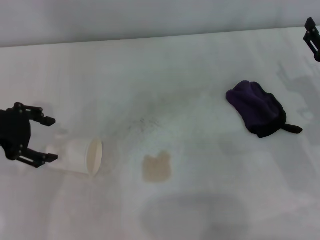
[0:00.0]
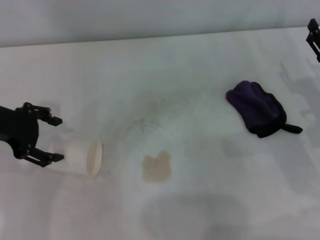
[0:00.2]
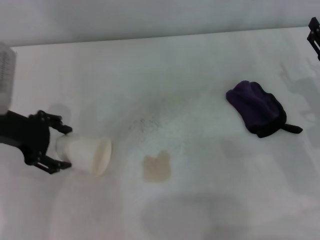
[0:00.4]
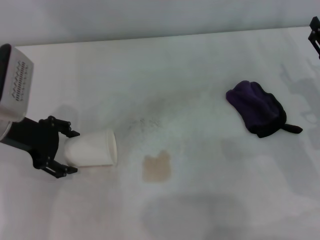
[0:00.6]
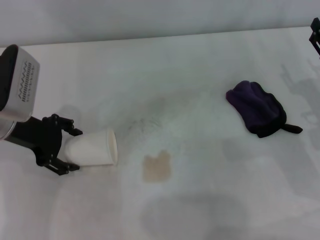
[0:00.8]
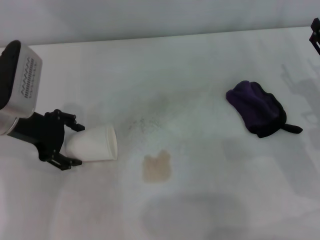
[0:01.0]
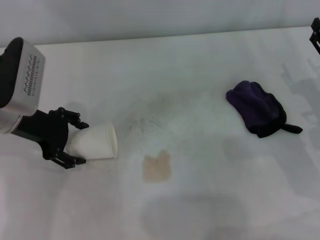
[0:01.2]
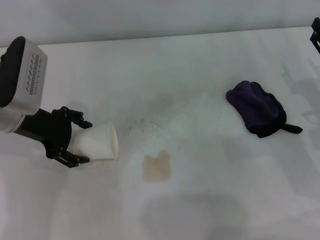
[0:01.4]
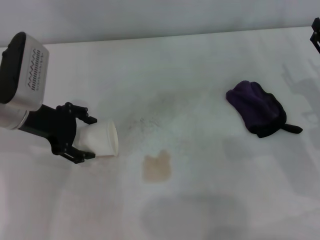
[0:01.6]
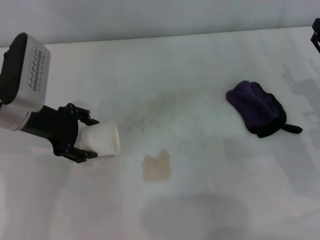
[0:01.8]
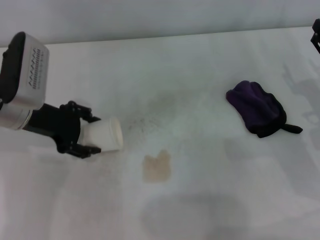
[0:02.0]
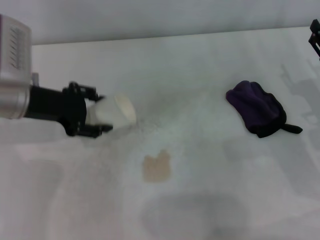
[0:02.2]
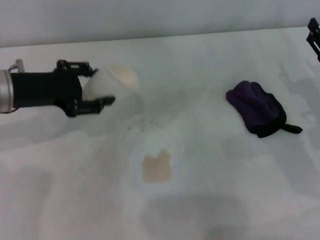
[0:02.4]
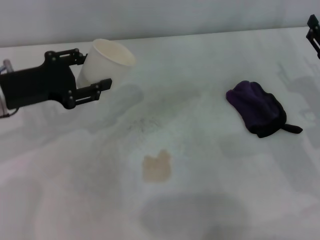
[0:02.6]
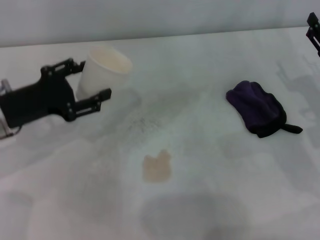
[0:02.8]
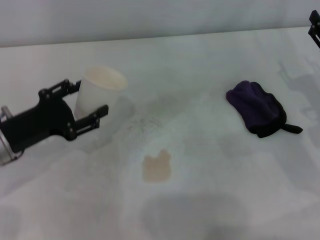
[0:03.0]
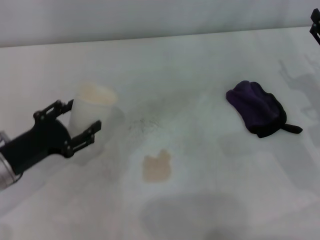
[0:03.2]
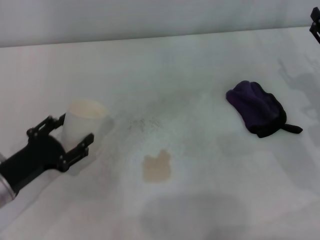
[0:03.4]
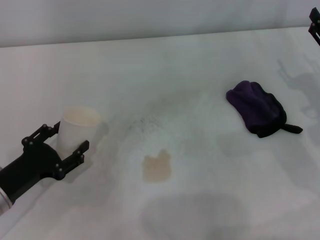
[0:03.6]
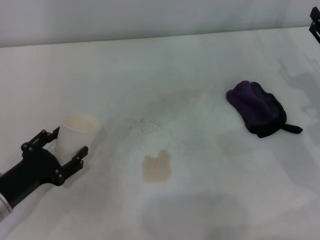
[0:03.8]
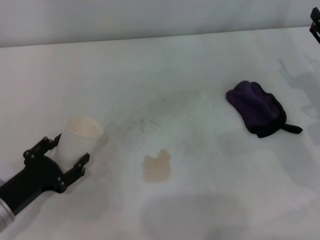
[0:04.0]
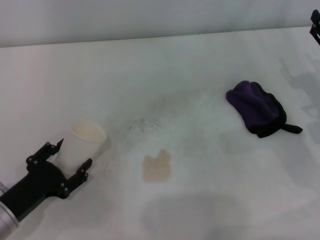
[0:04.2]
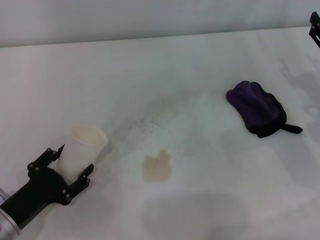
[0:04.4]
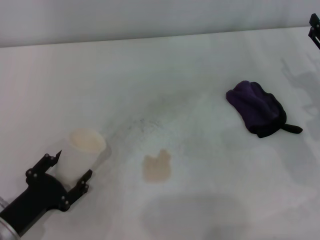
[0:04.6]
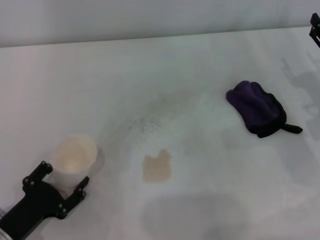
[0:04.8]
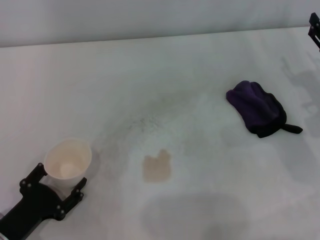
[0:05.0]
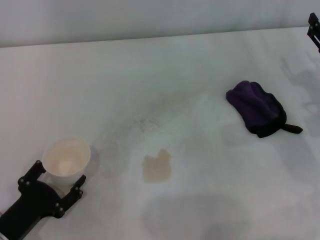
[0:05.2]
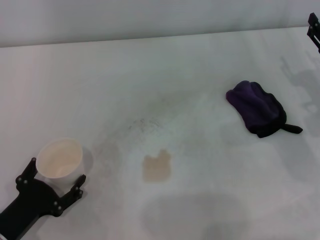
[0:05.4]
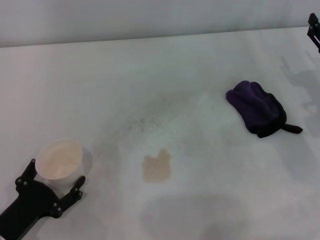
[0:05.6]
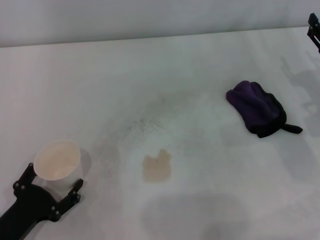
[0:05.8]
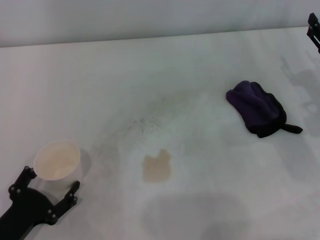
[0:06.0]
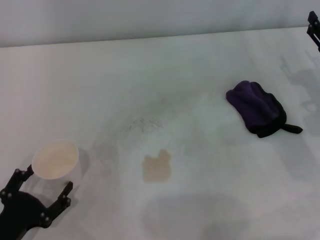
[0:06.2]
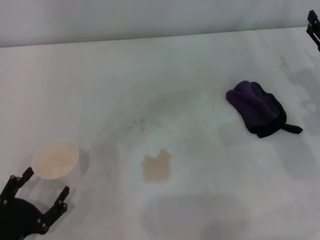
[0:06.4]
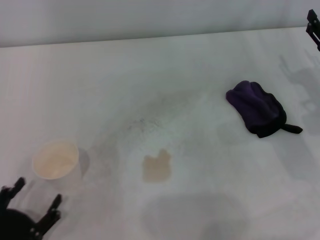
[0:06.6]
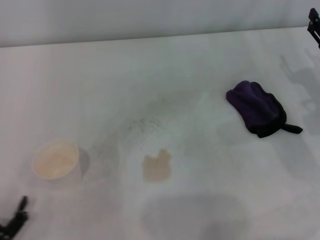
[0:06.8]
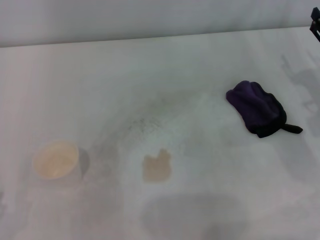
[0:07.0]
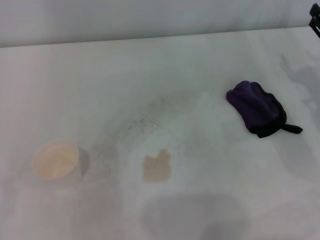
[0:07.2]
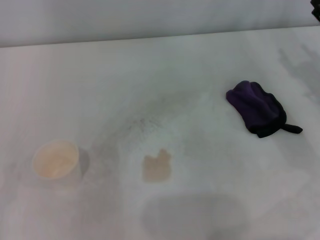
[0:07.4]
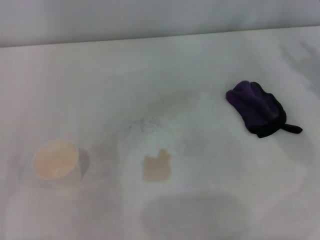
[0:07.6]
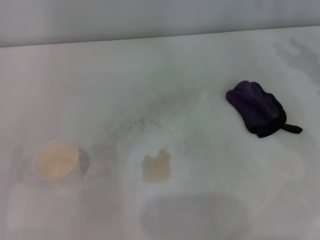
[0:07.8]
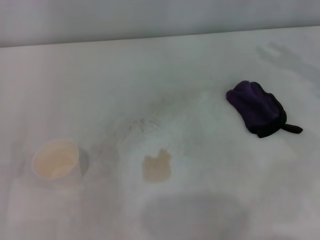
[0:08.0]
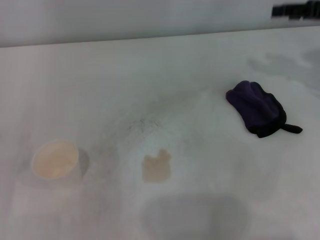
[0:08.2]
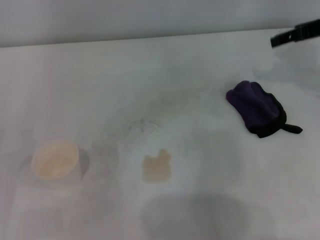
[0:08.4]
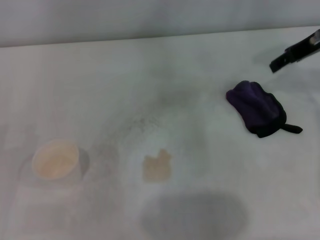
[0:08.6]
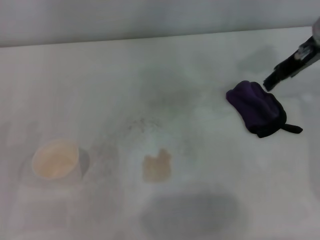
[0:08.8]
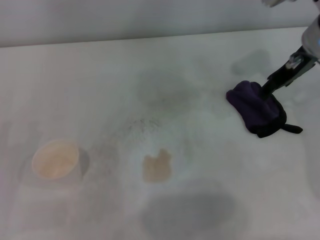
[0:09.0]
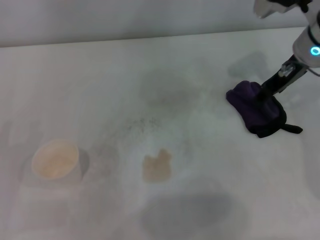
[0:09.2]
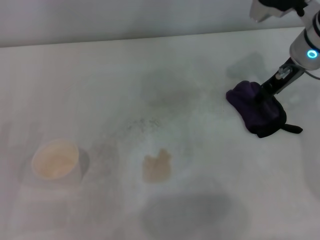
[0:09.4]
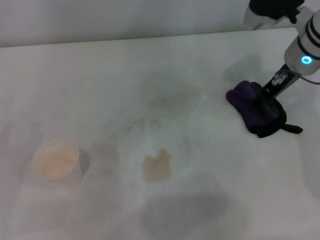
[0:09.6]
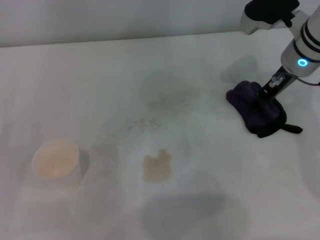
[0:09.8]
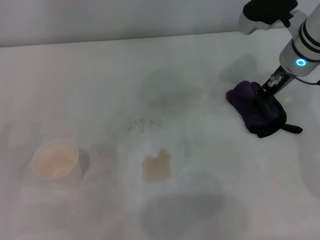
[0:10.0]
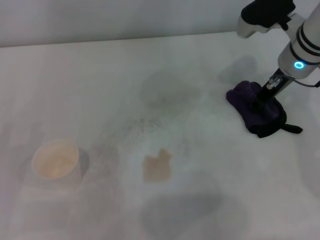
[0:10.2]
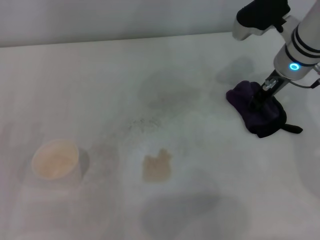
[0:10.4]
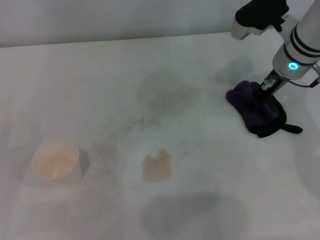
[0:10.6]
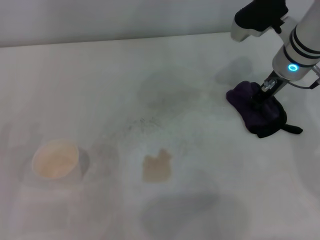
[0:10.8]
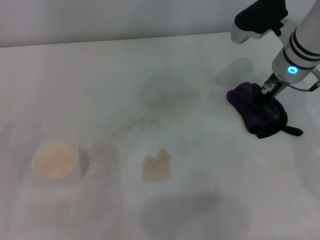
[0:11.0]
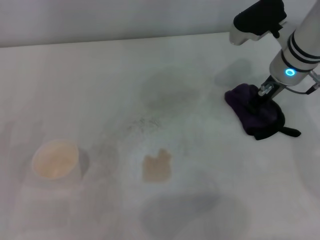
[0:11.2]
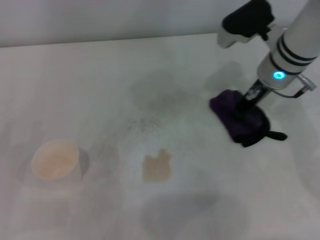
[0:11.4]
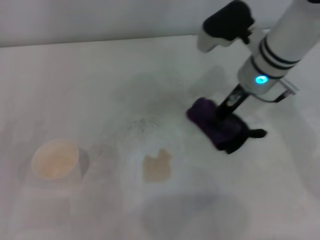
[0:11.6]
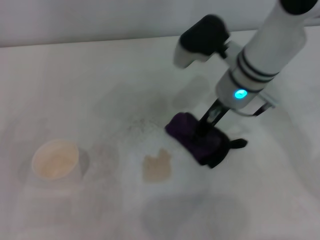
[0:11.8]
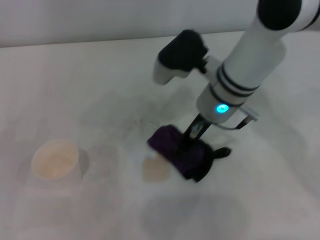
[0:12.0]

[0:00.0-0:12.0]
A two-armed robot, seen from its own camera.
Step, 0:01.2 to 0:06.2: Stand the paper cup upright with the left gripper.
Step, 0:06.4 to 0:10.2: Grasp the rag with the right gripper.
0:00.0 to 0:01.6: The left gripper travels to the right by some 5 cm.
0:01.6 to 0:03.0: The left gripper moves backward, about 10 cm, and closes its fingers.
0:03.0 to 0:04.4: The left gripper shifts about 15 cm backward and downward.
0:04.4 to 0:06.0: The left gripper opens up.
0:06.0 to 0:07.6: The left gripper is displaced to the left by approximately 10 cm, while the right gripper changes place by some 5 cm.
0:07.6 to 0:09.0: The right gripper is displaced to the left, upward and forward by roughly 15 cm.
0:09.0 to 0:10.4: The right gripper is displaced downward by about 5 cm.
0:10.4 to 0:12.0: The right gripper shifts approximately 10 cm to the left, and closes.

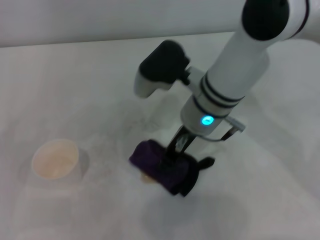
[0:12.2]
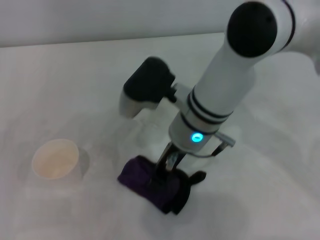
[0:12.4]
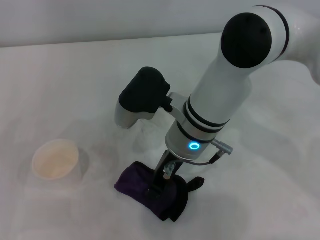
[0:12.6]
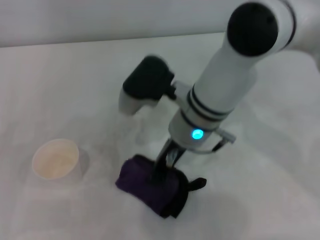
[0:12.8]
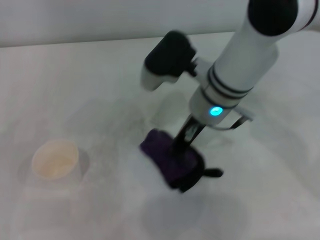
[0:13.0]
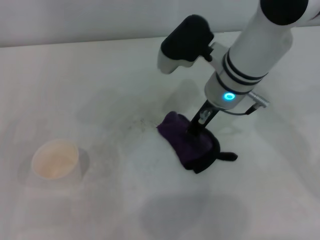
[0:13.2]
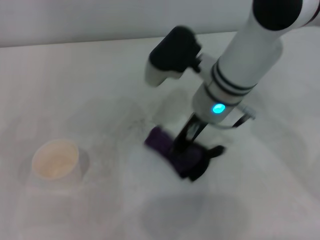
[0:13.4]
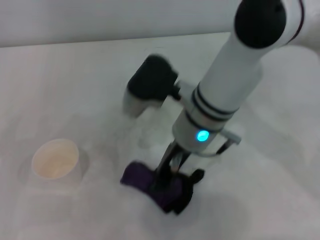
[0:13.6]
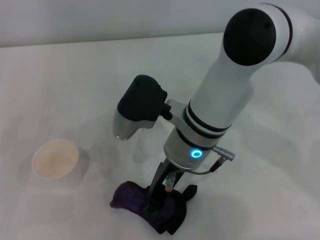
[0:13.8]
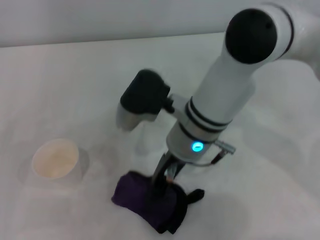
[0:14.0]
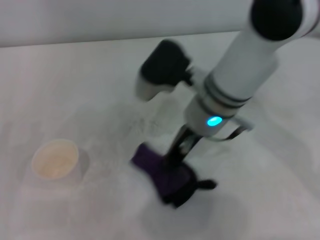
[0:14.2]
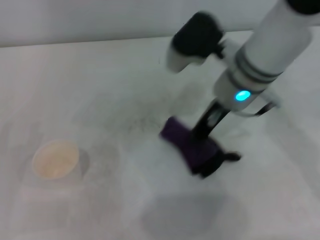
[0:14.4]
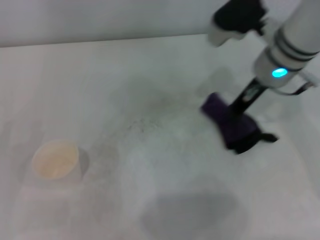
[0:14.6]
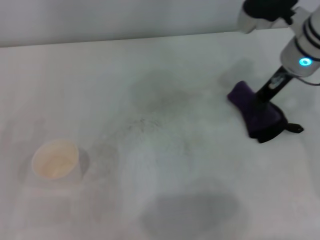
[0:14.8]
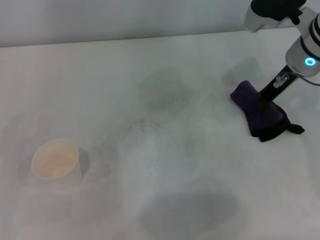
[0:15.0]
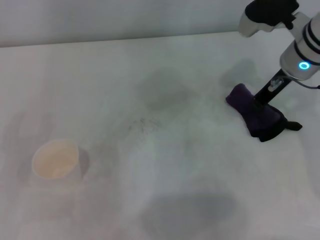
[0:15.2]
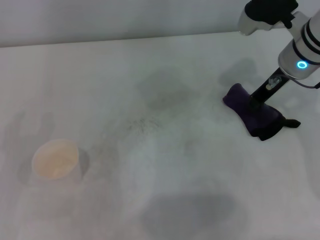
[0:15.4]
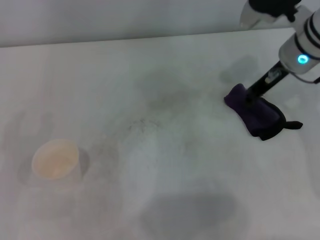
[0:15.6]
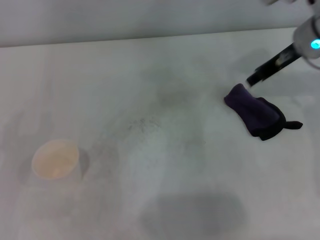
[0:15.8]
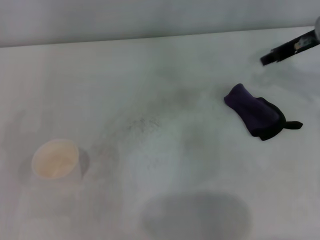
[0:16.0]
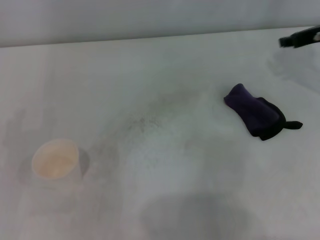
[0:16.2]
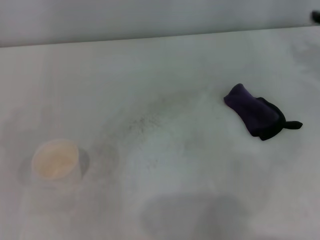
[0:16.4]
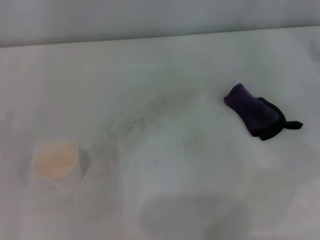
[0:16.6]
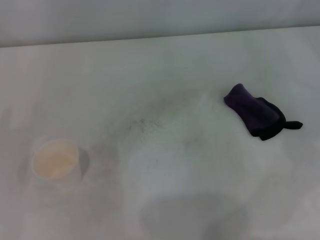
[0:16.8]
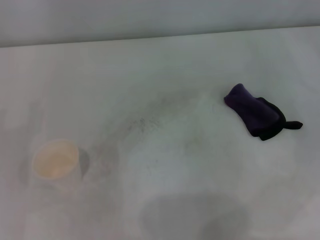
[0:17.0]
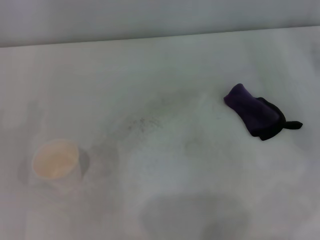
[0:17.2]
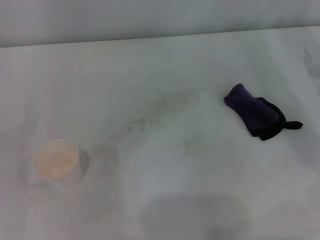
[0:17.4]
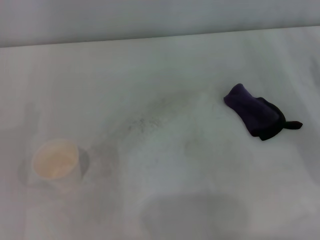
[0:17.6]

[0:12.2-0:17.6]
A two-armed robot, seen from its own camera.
Step, 0:12.2 to 0:14.4: Wipe the stains off the table with the right gripper.
Step, 0:14.6 to 0:15.4: Place the rag on the table with the right gripper.
0:12.2 to 0:13.6: The grippers move only a little.
0:13.6 to 0:15.0: The right gripper travels to the right and forward by about 20 cm.
0:15.0 to 0:16.2: The right gripper is displaced to the right by some 10 cm, and opens.
0:16.2 to 0:17.6: The right gripper goes approximately 15 cm backward, downward and to the right.
